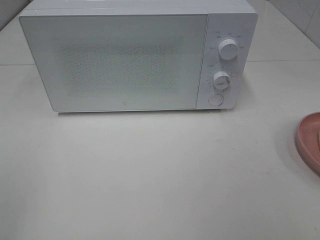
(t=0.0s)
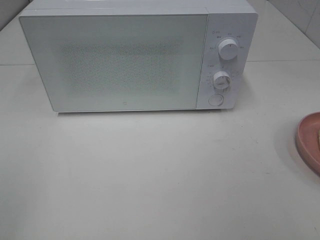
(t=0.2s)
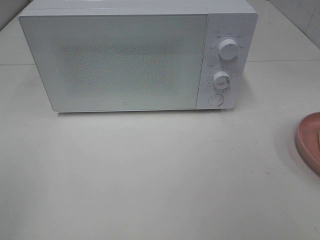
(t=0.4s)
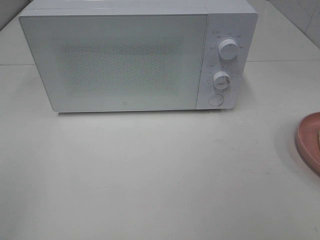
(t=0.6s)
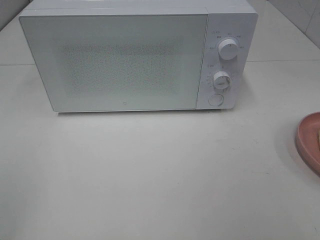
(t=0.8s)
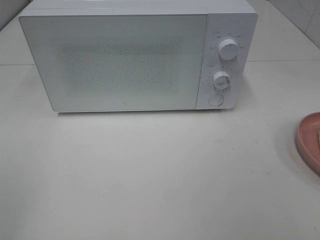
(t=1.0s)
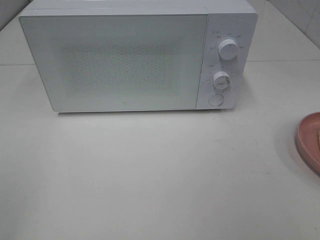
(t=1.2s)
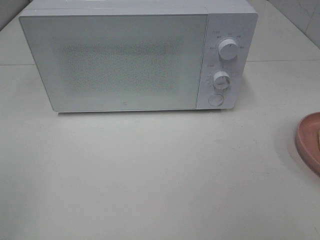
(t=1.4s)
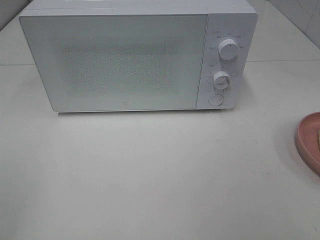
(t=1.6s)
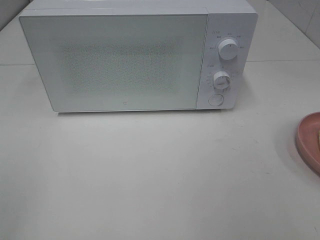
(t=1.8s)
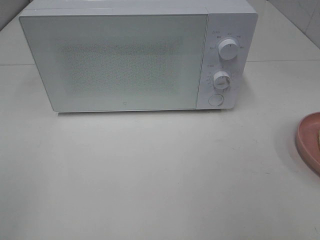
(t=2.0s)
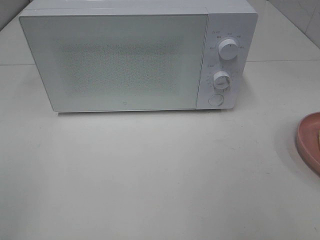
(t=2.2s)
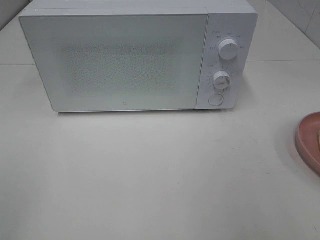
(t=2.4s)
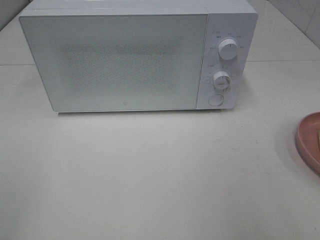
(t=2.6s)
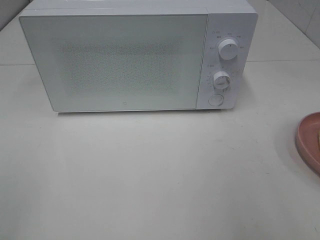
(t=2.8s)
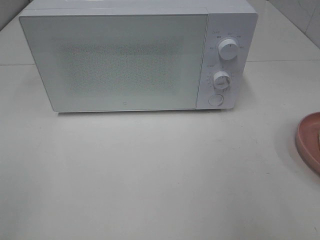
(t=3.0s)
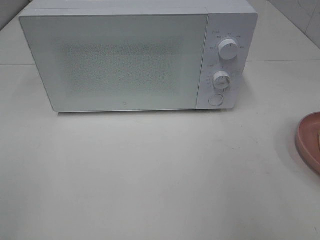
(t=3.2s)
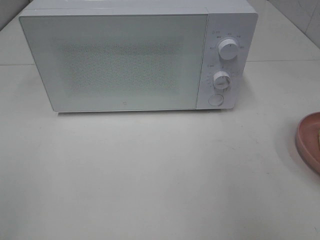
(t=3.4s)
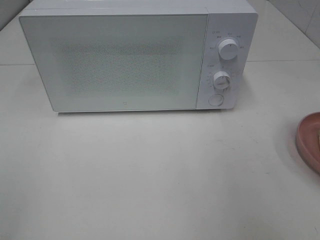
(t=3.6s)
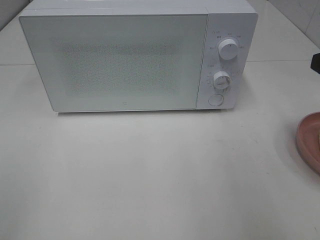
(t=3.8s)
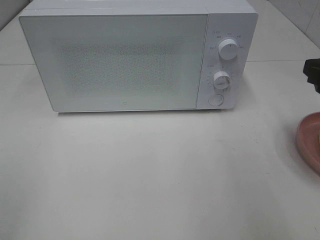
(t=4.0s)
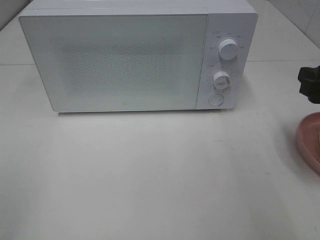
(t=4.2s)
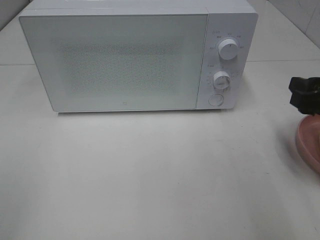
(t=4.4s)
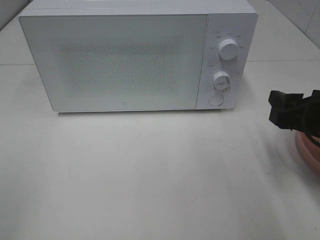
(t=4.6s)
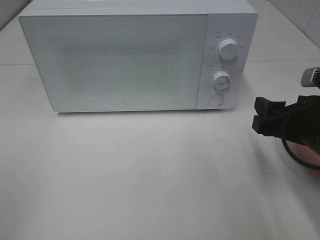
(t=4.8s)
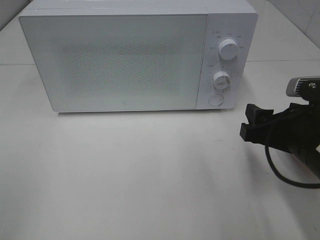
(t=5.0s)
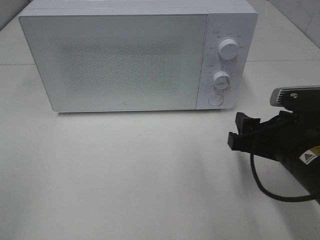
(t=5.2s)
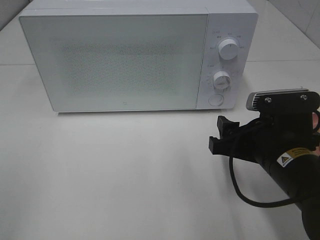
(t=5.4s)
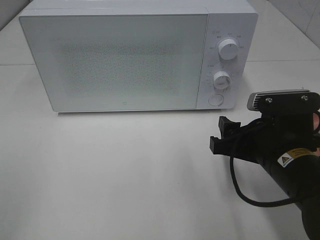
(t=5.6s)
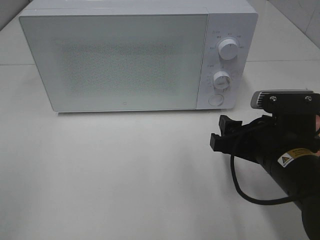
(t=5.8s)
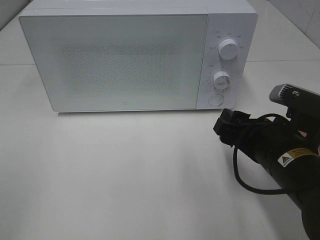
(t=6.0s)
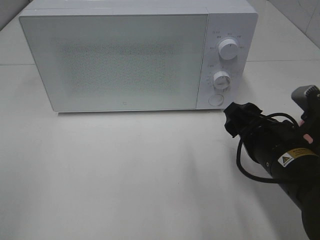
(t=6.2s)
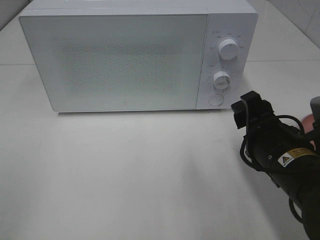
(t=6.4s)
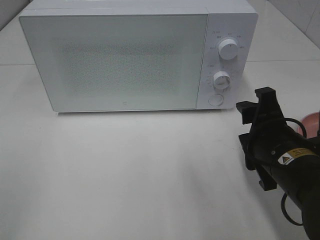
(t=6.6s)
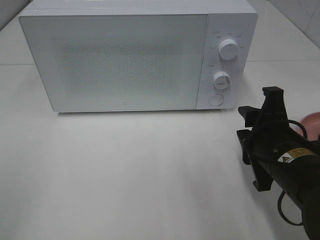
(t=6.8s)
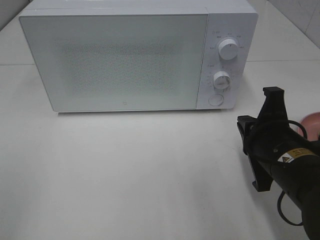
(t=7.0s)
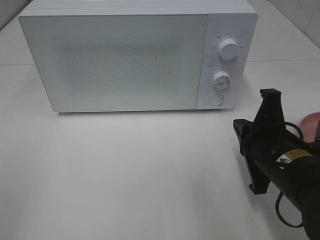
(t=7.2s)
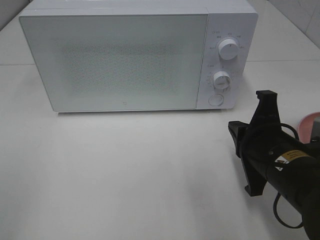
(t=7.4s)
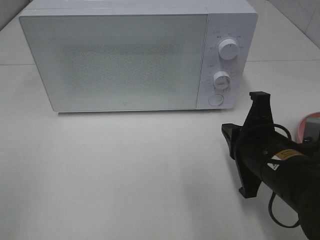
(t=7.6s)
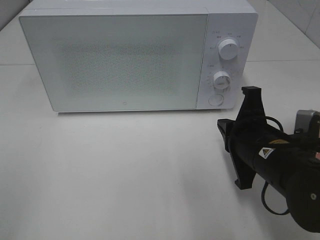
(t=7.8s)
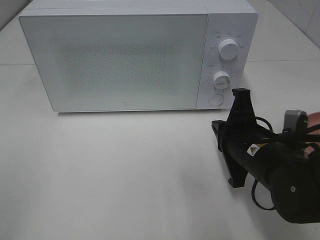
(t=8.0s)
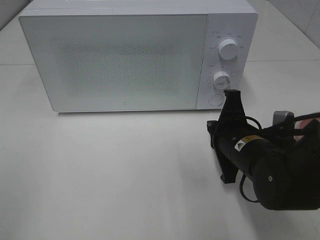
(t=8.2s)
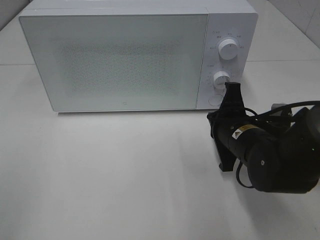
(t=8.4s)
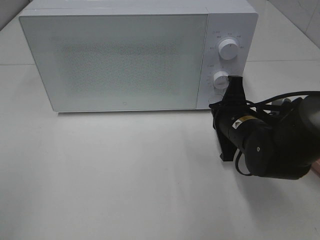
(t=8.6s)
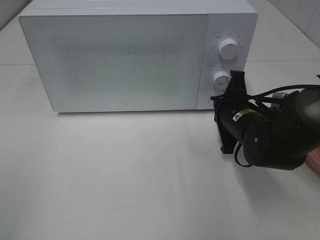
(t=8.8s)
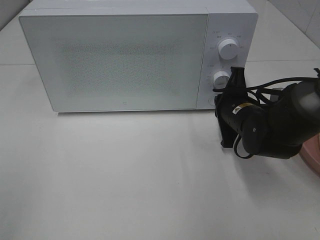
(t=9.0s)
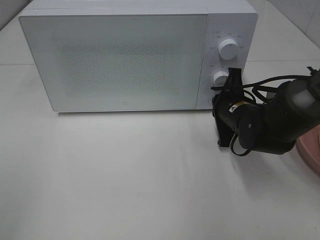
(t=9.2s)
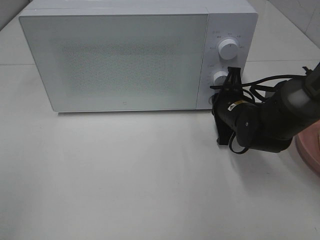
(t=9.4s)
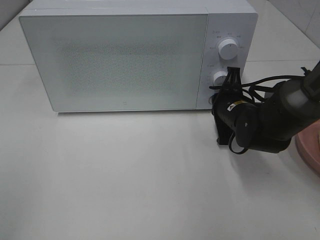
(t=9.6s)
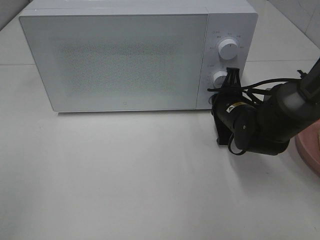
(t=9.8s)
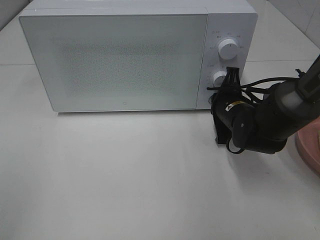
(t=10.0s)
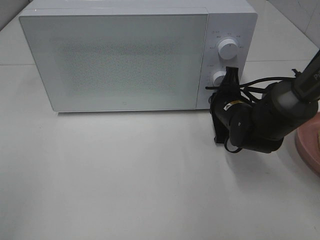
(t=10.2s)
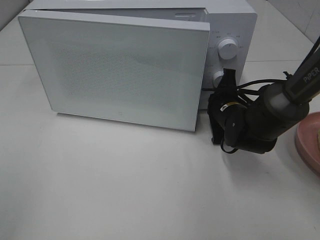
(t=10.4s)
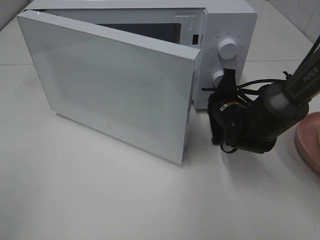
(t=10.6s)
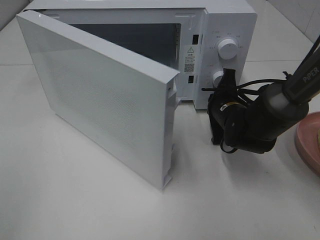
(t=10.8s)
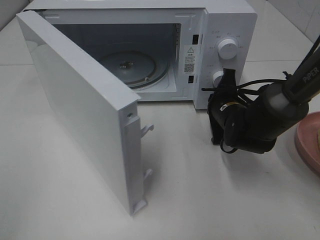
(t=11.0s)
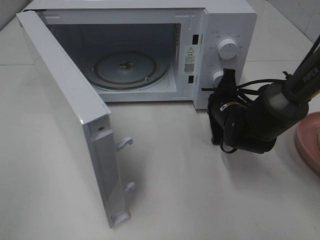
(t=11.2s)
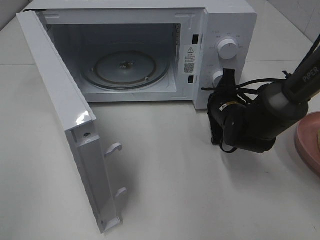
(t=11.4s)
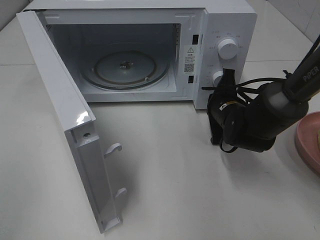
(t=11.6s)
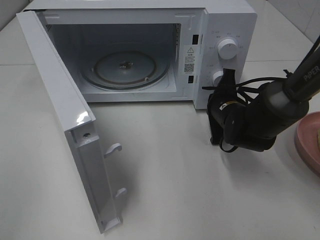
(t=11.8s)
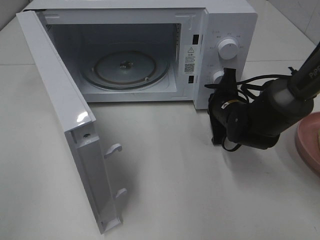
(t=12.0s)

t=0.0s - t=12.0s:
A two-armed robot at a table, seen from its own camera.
Task of the whole recording: Heat Sandwich.
t=0.0s - t=1.6s: Both grippers stay put.
t=3.0s - t=4.4s: The right gripper travels downward and forward by about 15 cm.
t=4.4s - t=6.0s: The right gripper goes about 10 cm to the left and downward.
t=6.0s - t=7.6s: The right gripper closes.
t=7.6s - t=9.0s: The right gripper goes roughly 15 cm forward.
t=9.0s - t=10.4s: There are only small adjustments of the grippers.

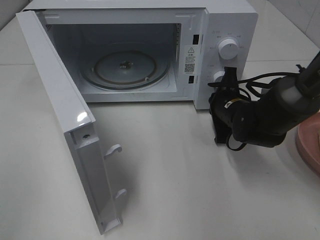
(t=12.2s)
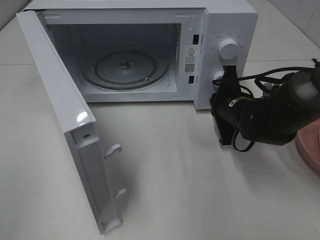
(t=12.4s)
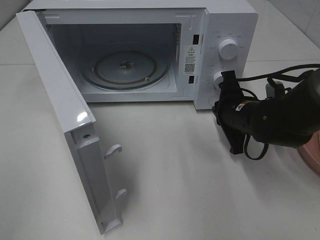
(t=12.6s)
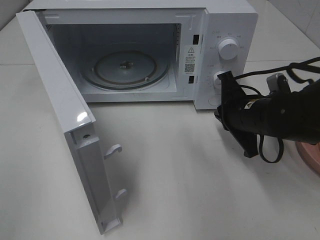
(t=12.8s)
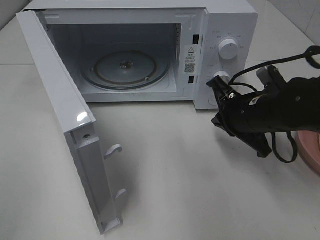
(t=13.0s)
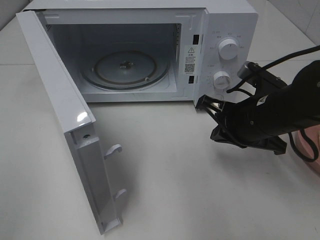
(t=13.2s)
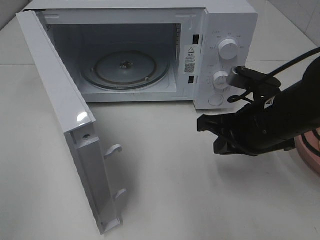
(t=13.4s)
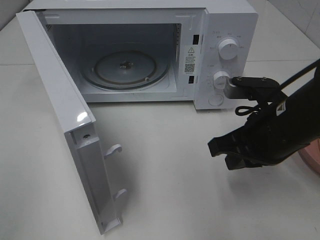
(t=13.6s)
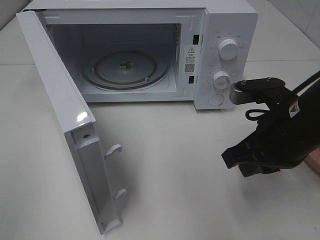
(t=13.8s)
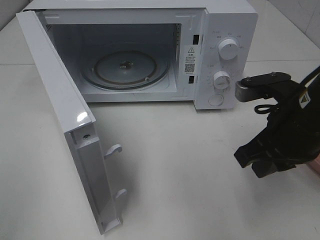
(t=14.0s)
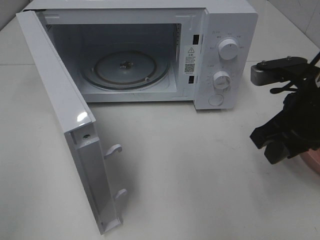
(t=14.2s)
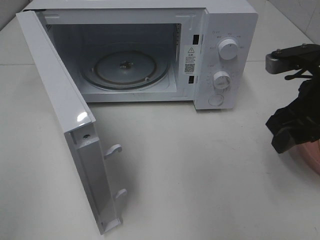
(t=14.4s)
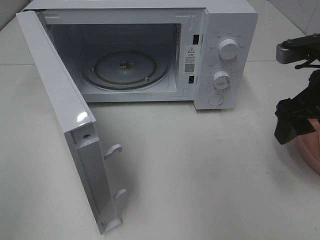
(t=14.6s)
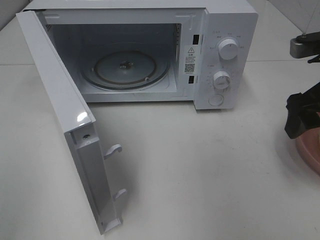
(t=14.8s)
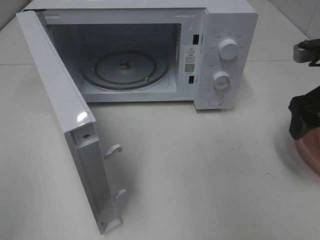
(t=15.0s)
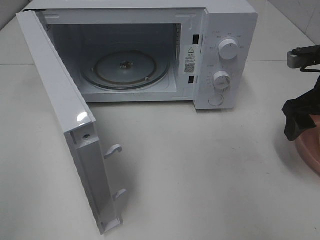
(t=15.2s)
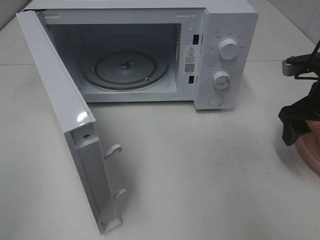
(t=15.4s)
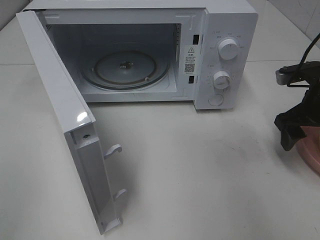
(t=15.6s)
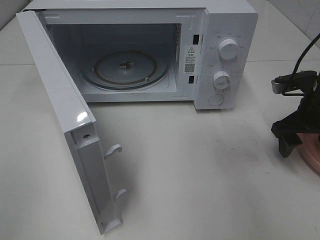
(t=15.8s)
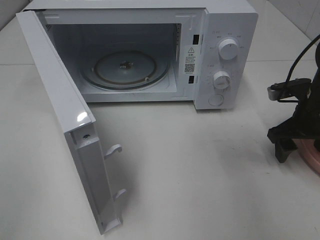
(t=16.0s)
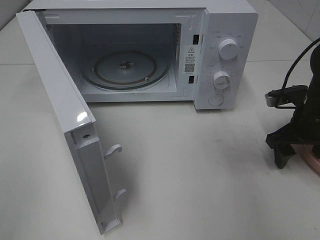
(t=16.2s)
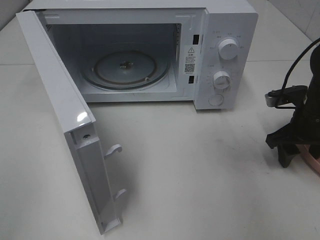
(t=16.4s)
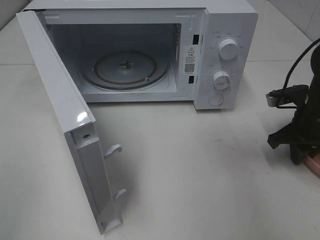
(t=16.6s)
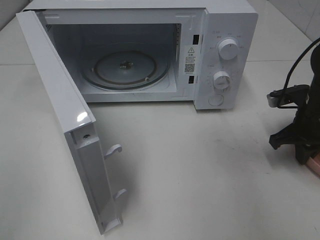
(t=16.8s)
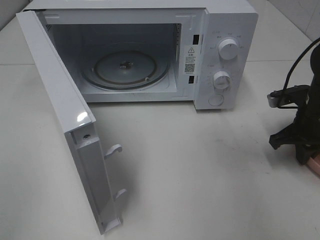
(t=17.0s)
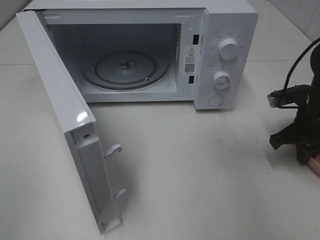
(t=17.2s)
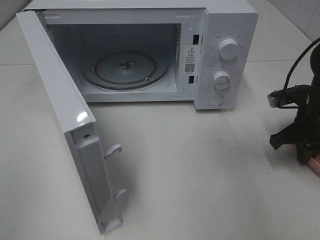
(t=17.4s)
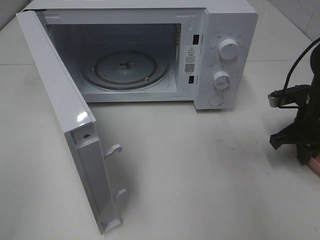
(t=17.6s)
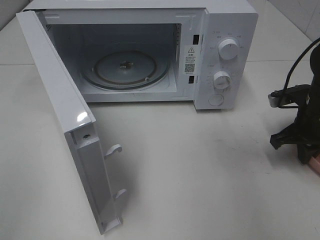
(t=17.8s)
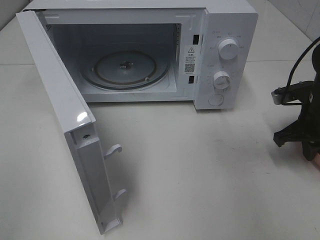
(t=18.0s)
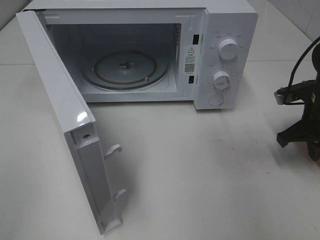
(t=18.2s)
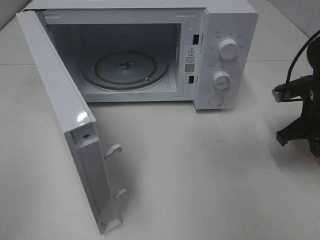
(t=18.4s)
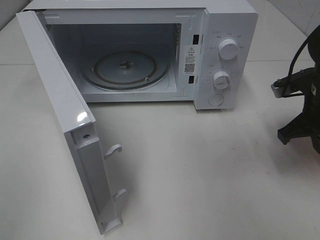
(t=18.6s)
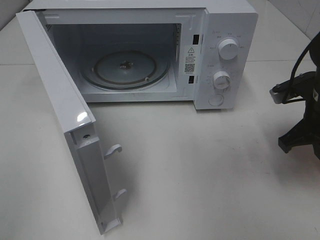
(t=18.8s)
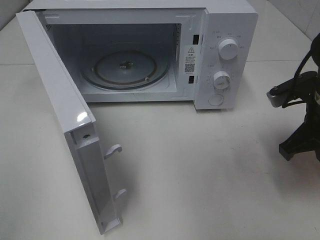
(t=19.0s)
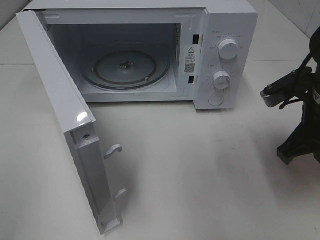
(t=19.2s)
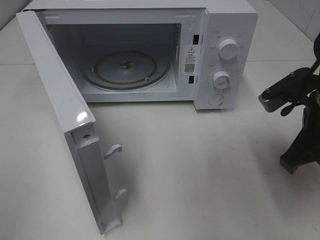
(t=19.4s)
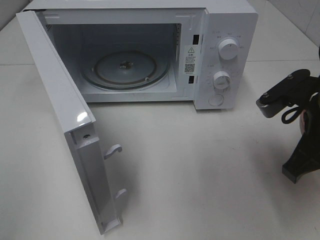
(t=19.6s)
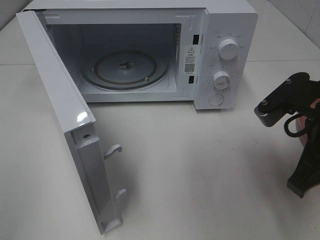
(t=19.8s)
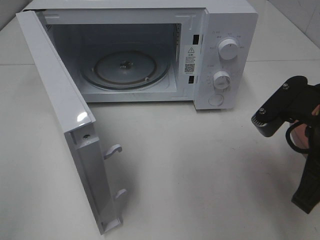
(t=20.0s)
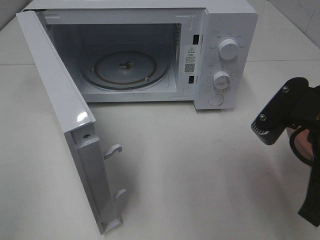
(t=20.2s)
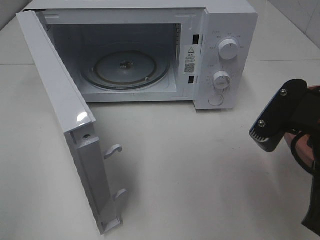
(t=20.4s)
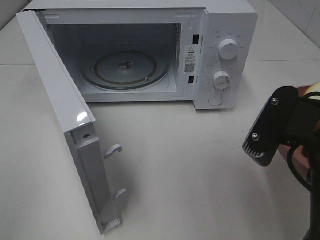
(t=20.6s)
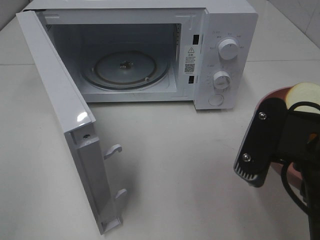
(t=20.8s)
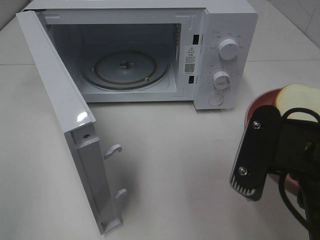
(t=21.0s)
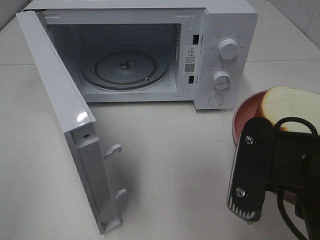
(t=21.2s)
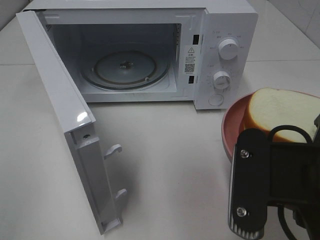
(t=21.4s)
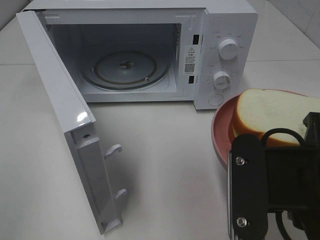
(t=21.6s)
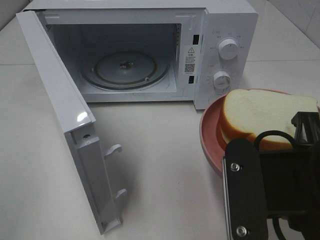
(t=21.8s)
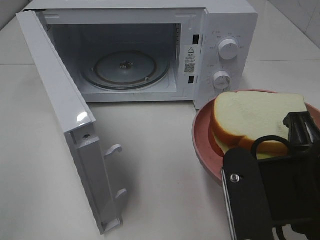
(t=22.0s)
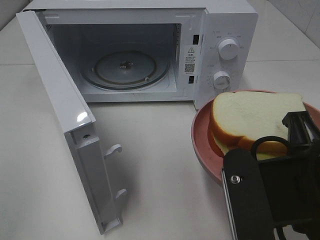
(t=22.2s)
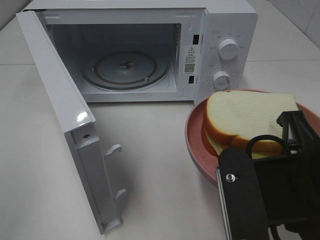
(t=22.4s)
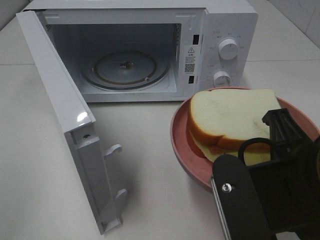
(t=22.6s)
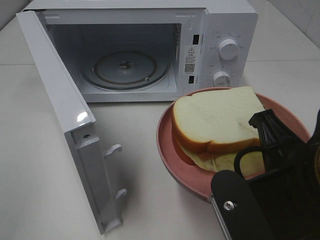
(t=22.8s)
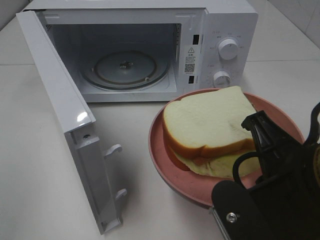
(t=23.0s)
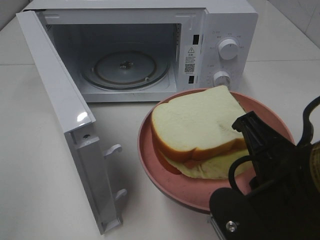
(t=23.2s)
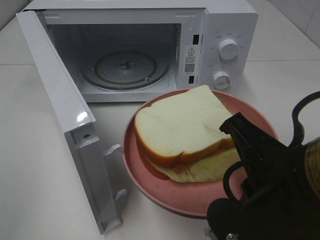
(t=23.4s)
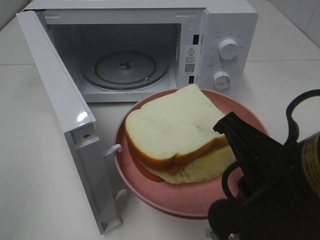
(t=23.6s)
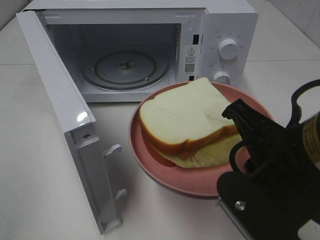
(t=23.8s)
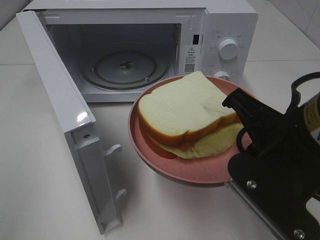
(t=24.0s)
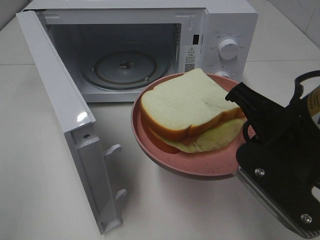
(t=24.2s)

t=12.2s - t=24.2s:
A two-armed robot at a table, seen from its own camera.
Task of the whole recording: Heat Sandwich.
Step, t=12.6s - t=16.8s: Right hand: grab the plate with the sandwich.
t=12.2s - t=13.8s: The right gripper shifts about 15 cm backward and upward.
t=13.8s - t=15.2s: The right gripper travels to the right and forward by roughly 15 cm, and opens its fingers.
t=15.2s - t=16.6s: The right gripper is displaced downward by approximately 10 cm, and closes.
t=16.6s - t=18.2s: The grippers stay close to where they were, moving slightly.
t=18.2s - t=19.8s: The right gripper travels backward, to the left and upward by approximately 20 cm.
t=19.8s - t=21.2s: The right gripper heads backward and to the left, covering roughly 10 cm.
t=22.6s - t=24.2s: The right gripper moves forward, about 5 cm.
